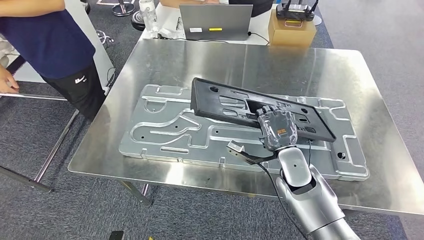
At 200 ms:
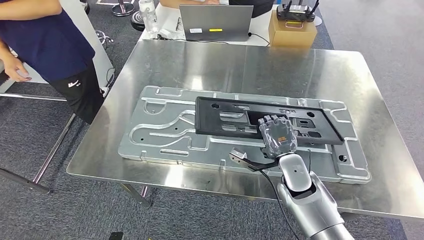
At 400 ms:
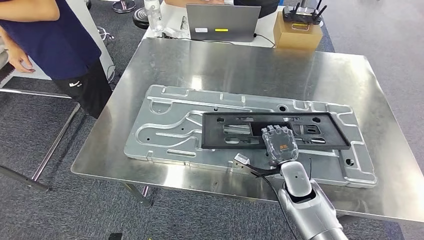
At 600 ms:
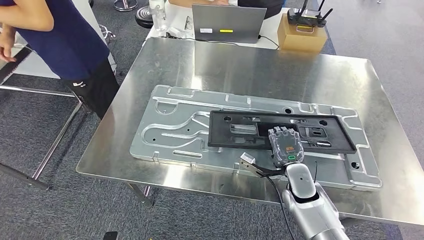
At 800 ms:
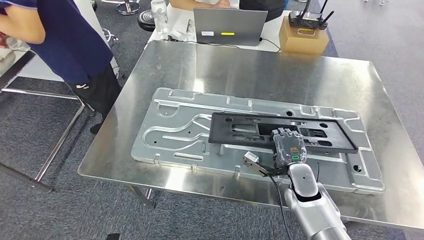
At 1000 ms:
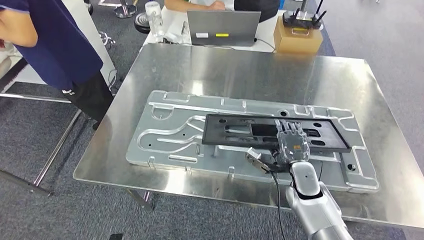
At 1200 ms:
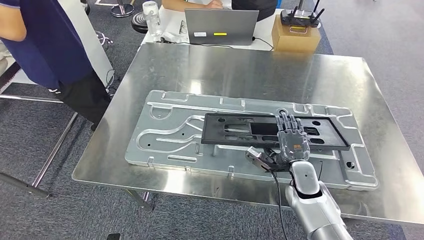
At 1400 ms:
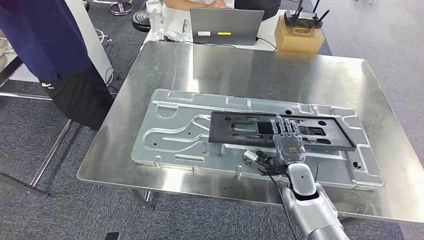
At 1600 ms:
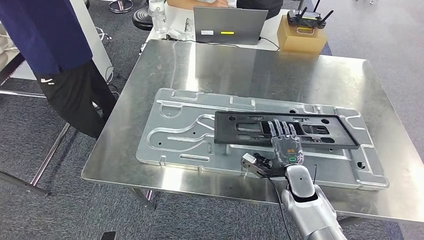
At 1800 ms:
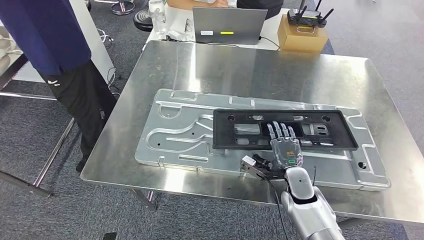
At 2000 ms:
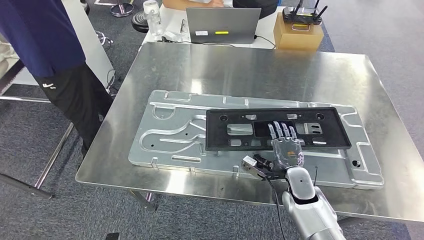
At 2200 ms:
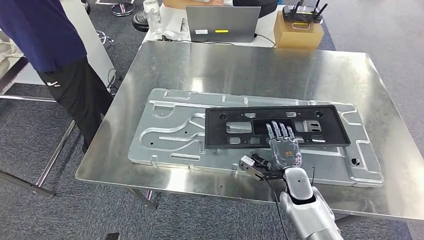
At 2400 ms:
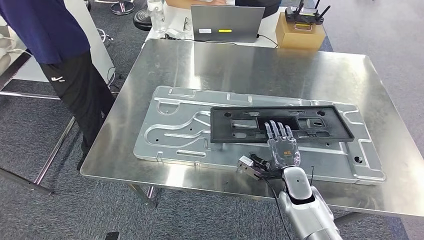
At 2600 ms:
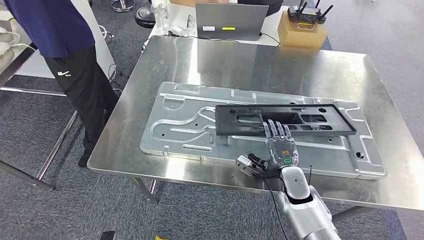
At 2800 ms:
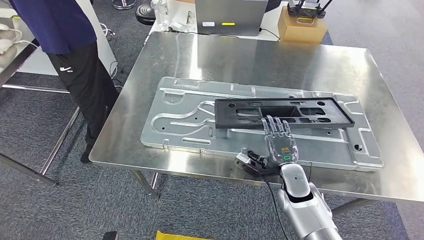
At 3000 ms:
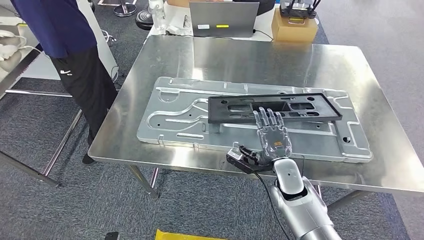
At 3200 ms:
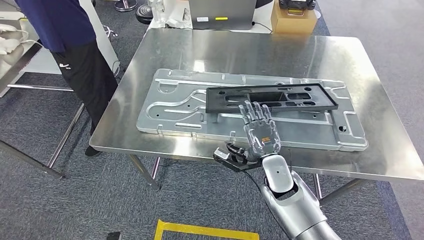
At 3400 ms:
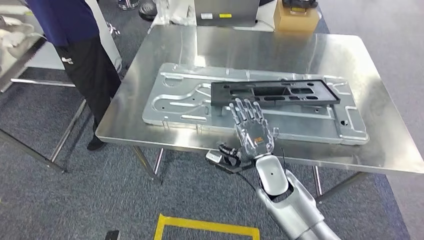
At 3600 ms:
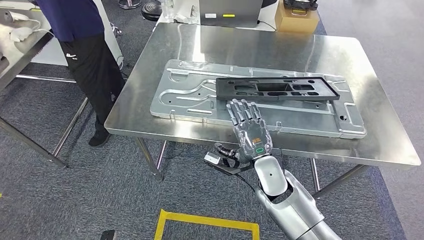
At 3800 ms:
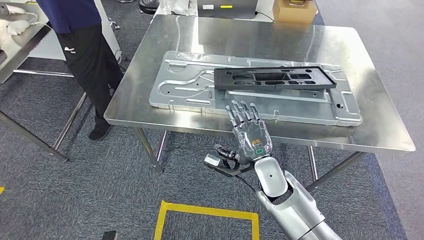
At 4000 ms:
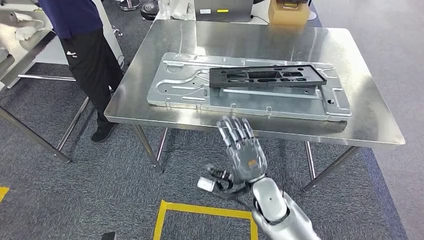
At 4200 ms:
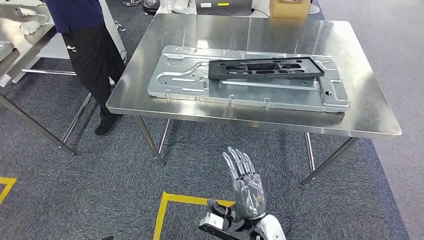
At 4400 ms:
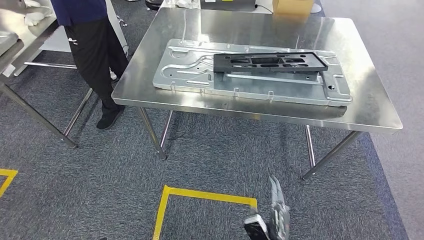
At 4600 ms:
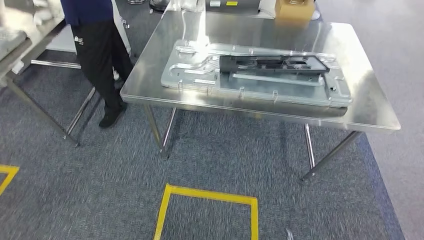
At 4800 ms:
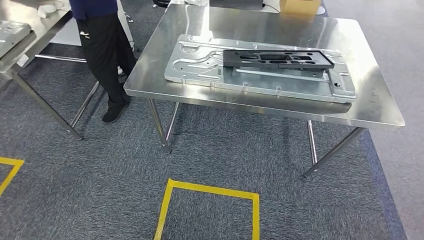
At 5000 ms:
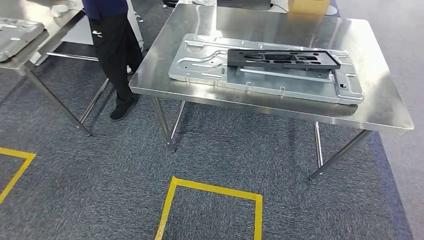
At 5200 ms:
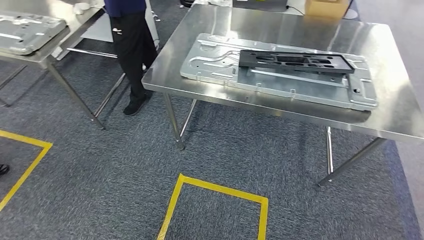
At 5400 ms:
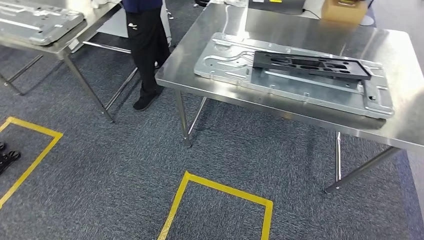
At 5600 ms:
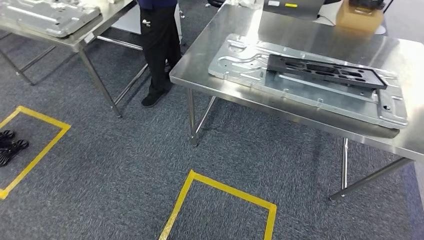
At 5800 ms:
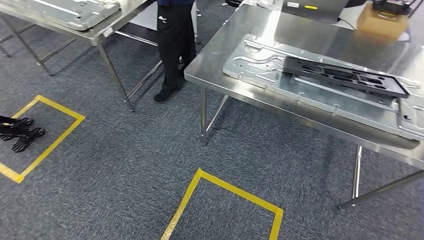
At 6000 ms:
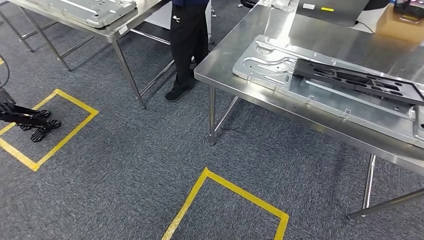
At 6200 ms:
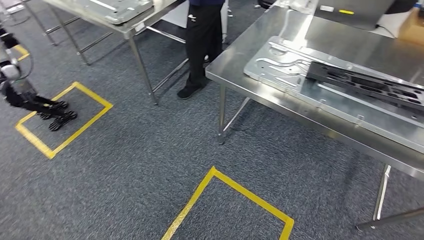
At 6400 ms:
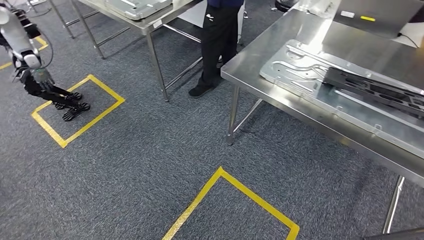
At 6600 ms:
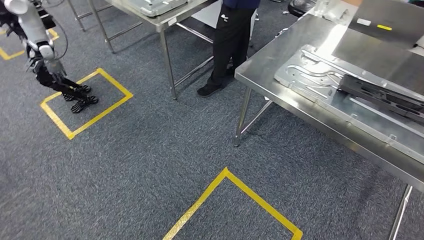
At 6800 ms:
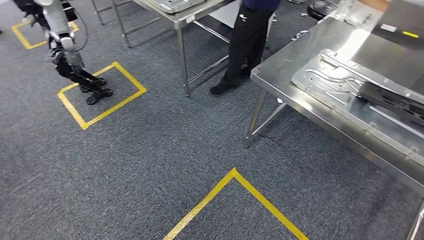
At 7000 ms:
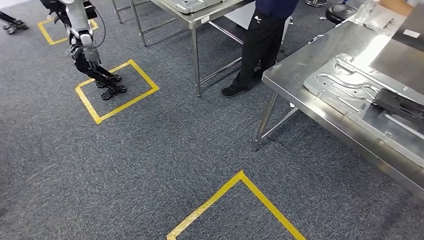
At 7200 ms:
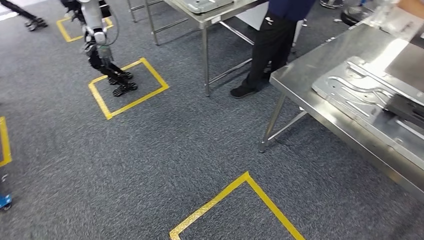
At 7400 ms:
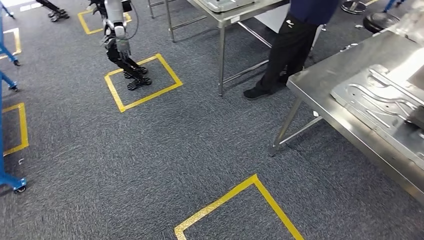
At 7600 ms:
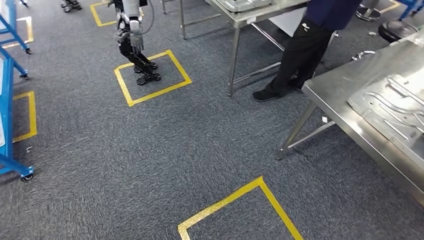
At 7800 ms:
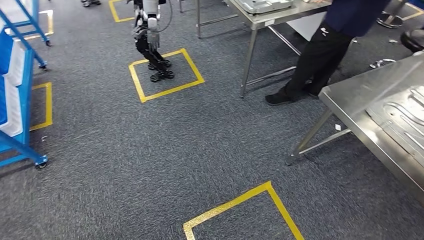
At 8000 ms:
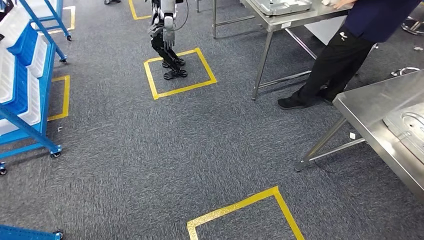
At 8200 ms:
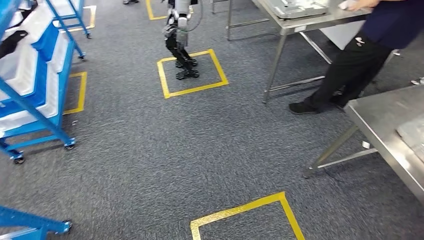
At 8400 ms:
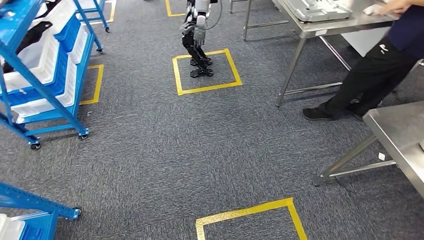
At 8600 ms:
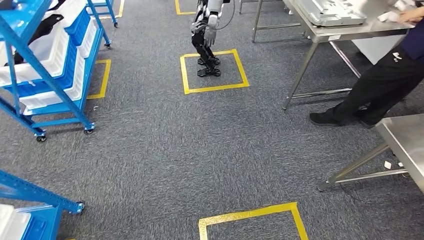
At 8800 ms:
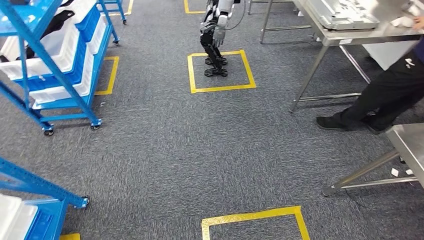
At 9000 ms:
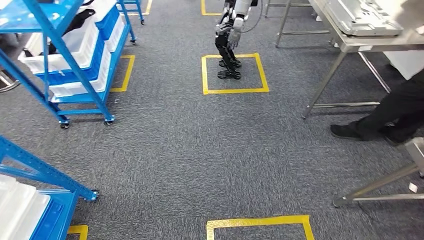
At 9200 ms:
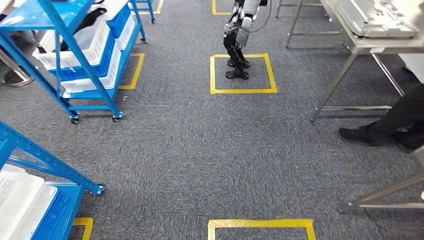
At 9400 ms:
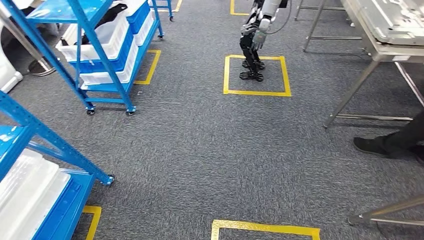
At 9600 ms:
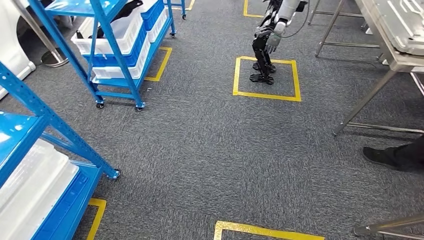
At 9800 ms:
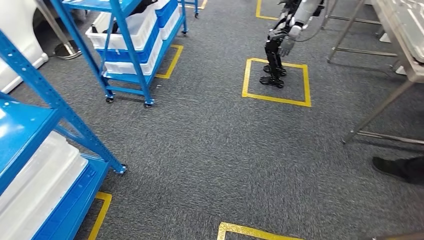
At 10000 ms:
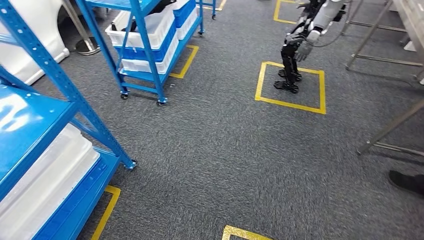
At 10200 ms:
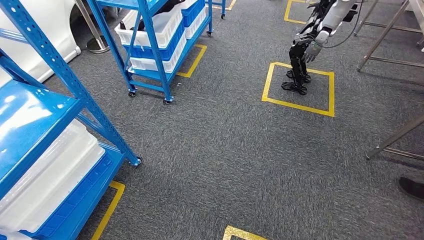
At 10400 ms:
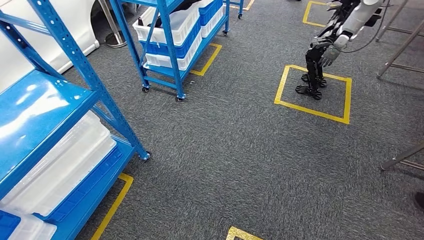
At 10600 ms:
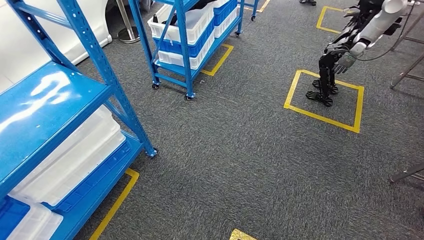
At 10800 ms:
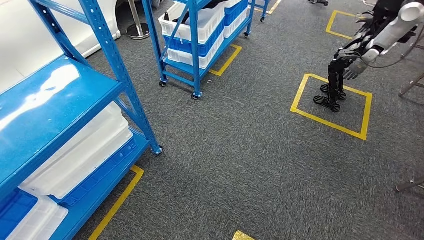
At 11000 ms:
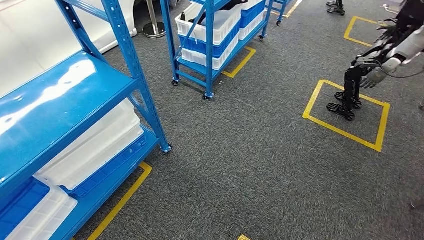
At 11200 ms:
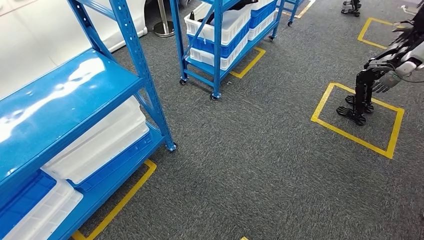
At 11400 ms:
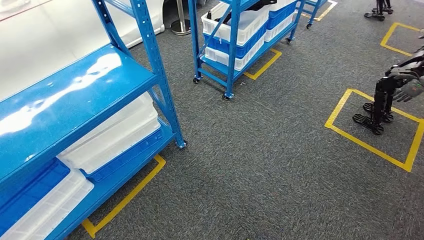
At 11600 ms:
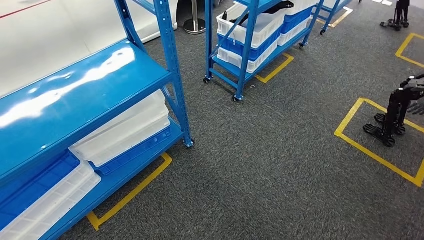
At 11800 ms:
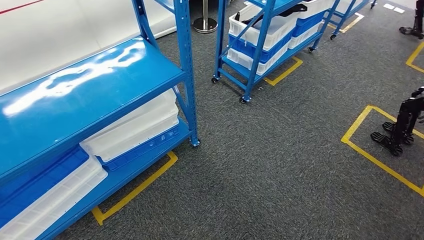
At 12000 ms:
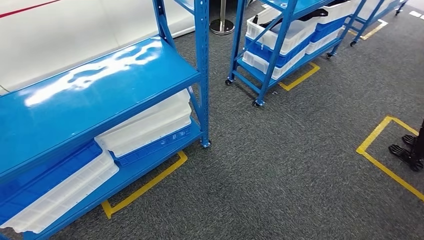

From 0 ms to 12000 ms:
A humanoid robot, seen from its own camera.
Step, from 0 ms to 5000 ms: Insert the large material into the corresponding slot on the workbench.

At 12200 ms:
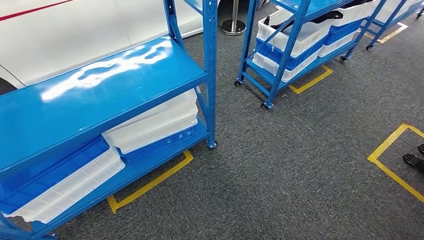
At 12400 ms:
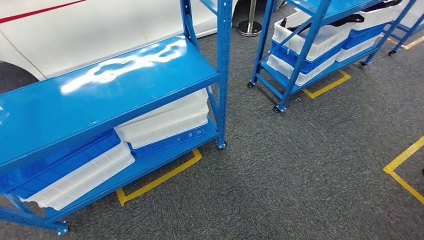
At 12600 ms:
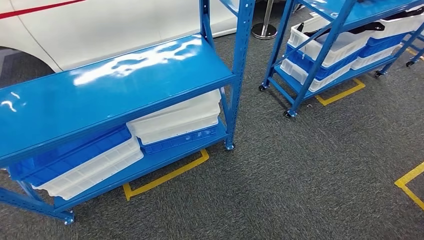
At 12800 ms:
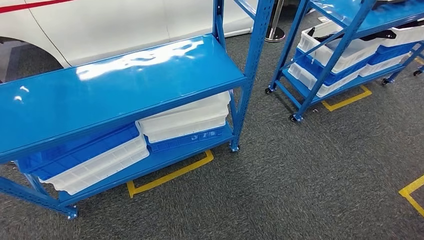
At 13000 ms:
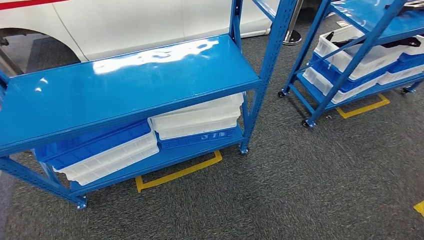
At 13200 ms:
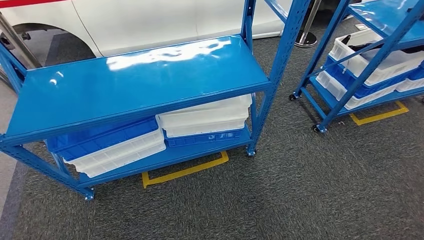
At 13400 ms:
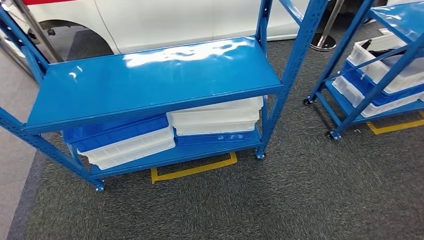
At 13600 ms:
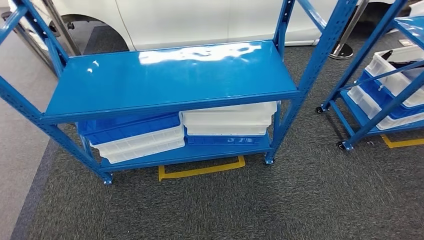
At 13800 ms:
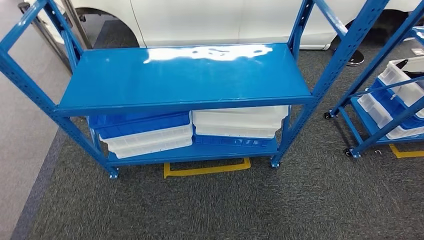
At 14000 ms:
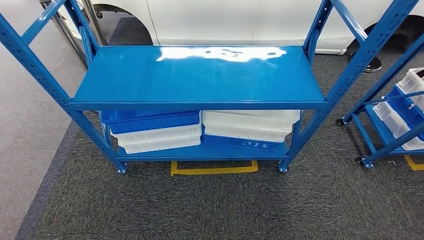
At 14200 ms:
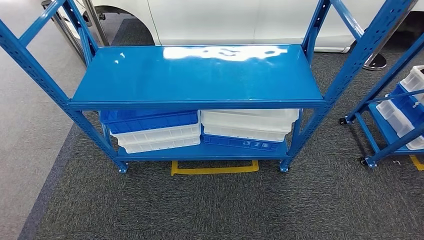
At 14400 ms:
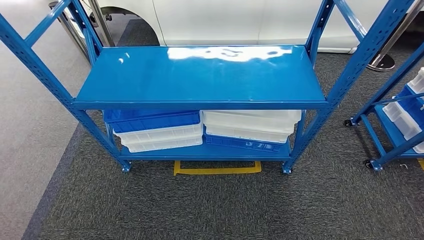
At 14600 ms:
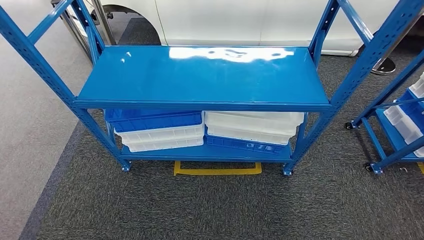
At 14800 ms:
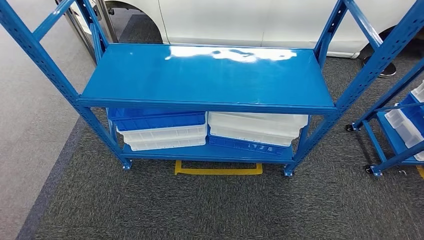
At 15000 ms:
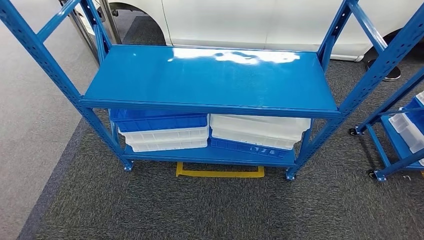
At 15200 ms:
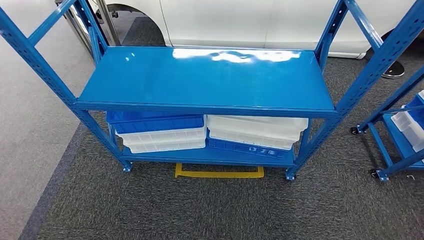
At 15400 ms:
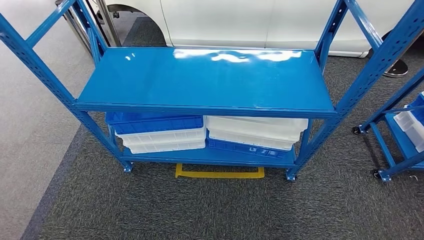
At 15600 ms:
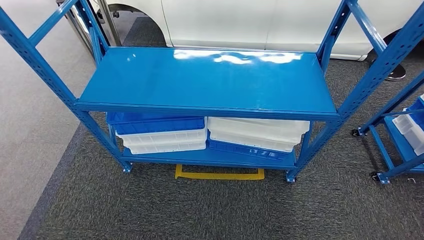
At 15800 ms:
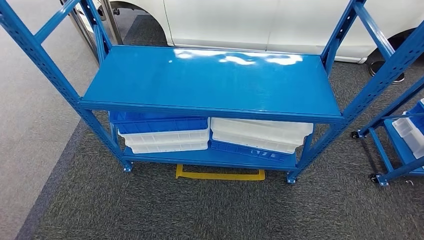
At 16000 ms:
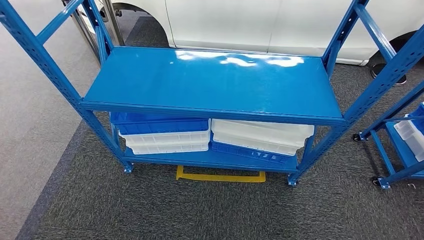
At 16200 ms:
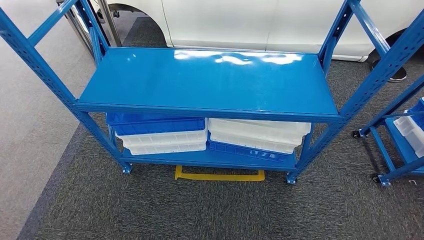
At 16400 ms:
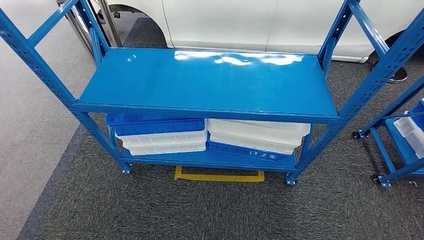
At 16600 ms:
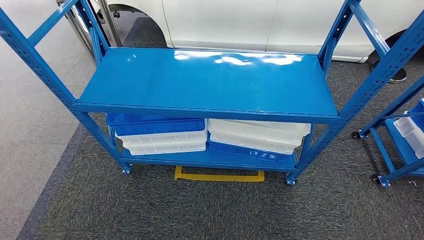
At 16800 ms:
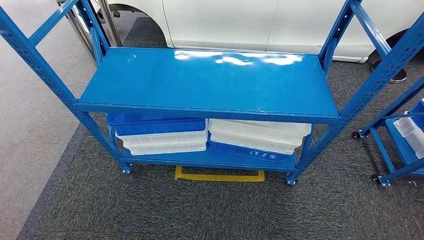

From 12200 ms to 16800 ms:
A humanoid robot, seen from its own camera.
Step, from 12200 ms to 16800 ms: Move to the initial position of the shelf.
From 15200 ms to 16800 ms: There are only small adjustments of the hands.
